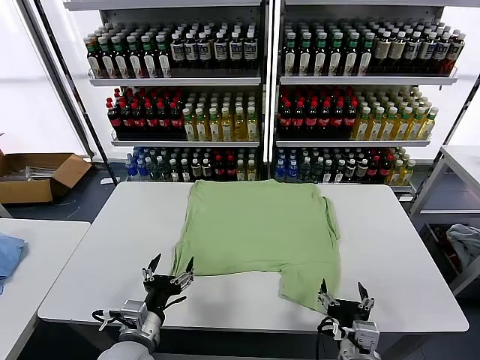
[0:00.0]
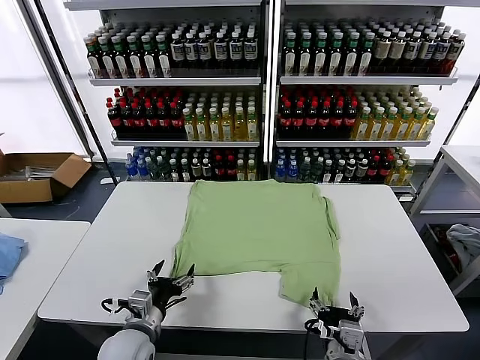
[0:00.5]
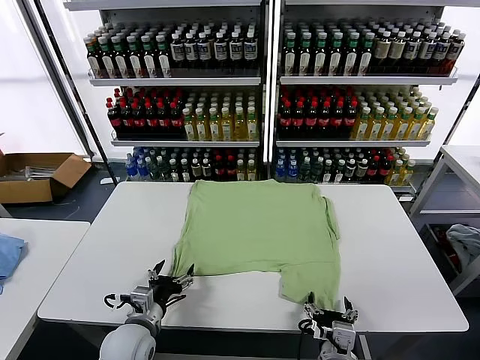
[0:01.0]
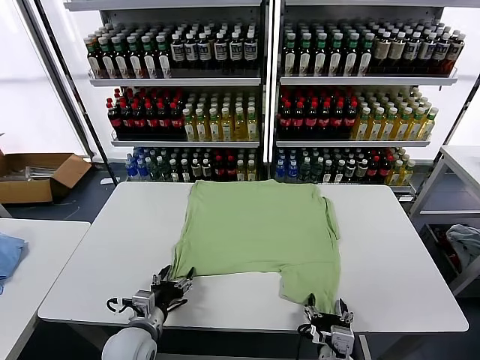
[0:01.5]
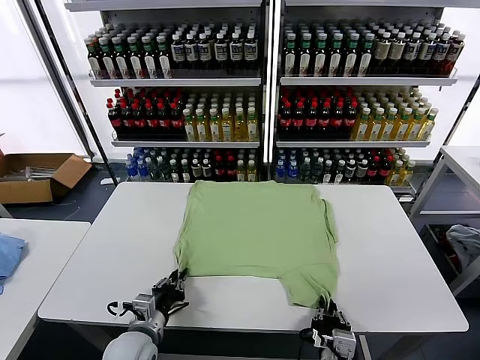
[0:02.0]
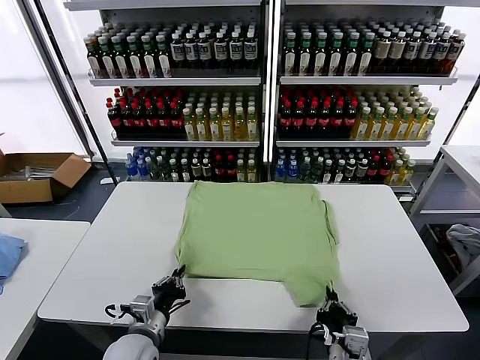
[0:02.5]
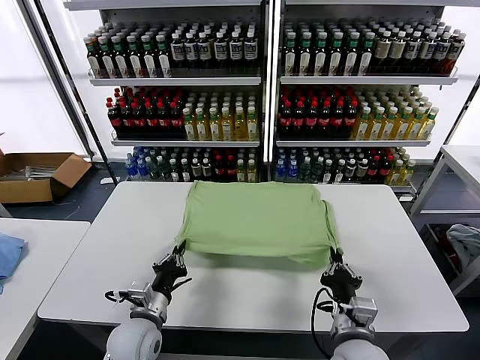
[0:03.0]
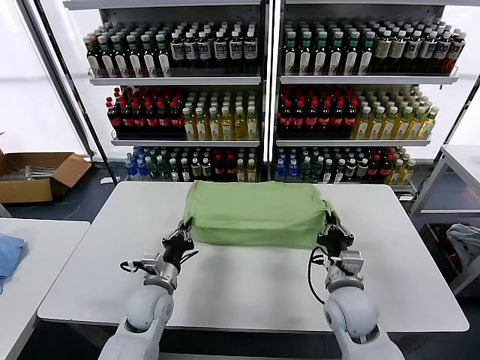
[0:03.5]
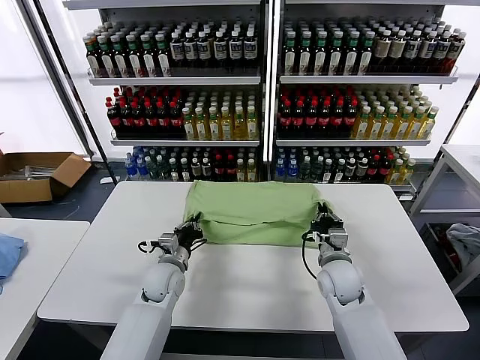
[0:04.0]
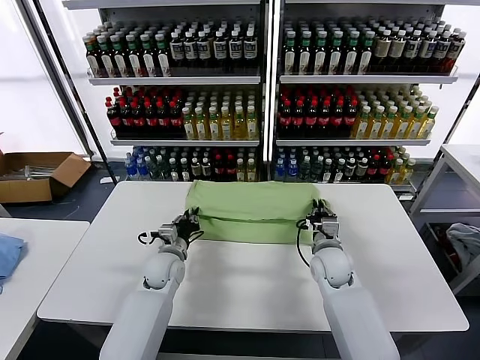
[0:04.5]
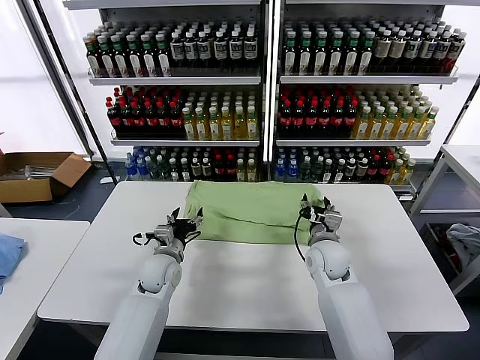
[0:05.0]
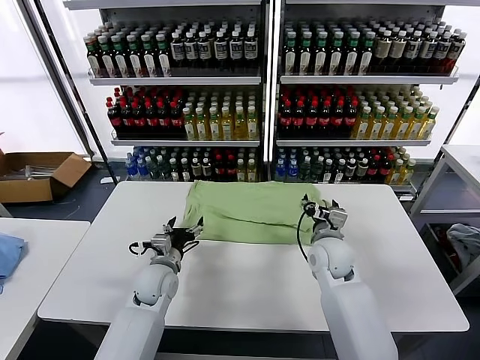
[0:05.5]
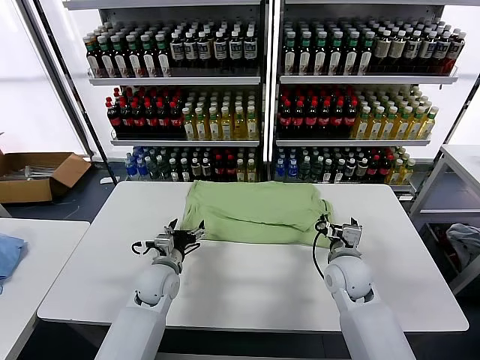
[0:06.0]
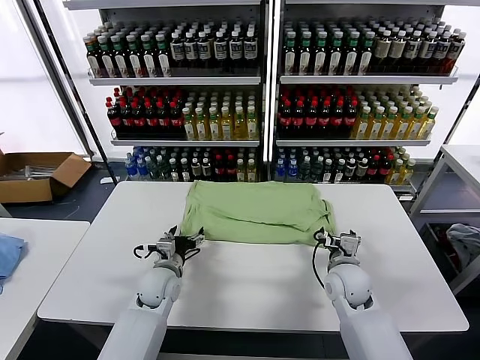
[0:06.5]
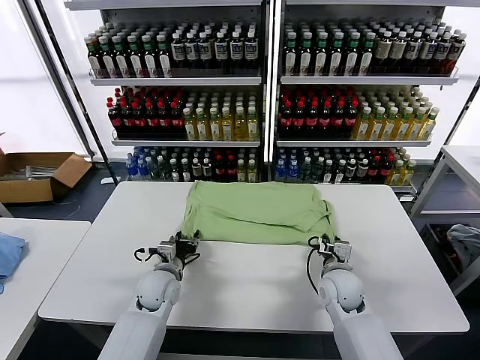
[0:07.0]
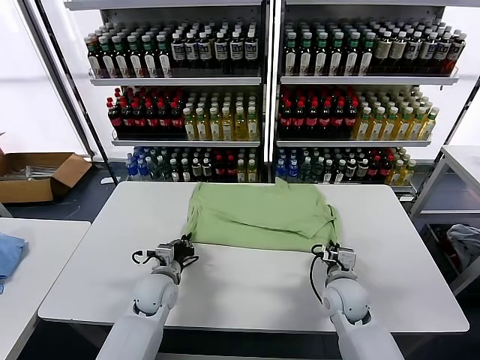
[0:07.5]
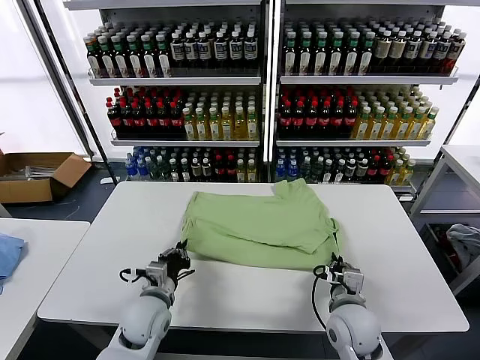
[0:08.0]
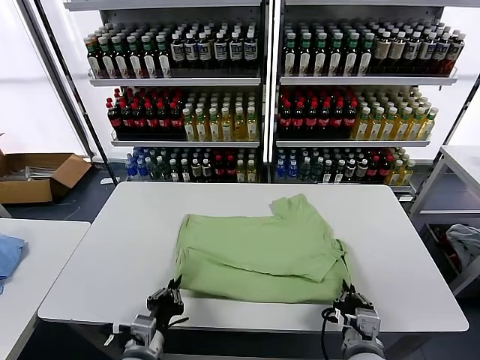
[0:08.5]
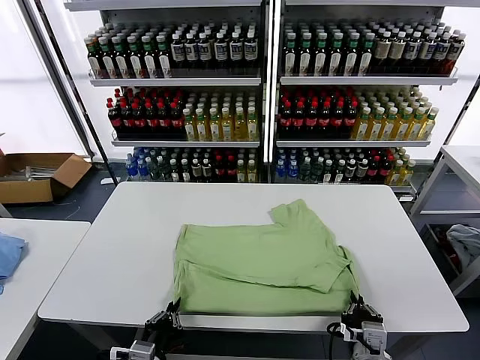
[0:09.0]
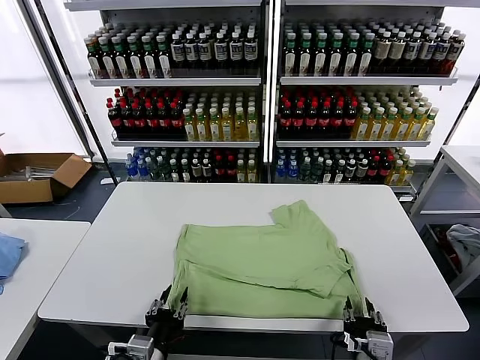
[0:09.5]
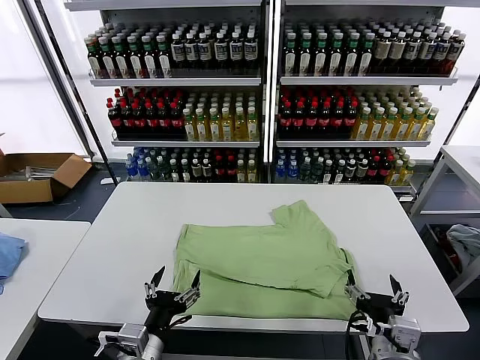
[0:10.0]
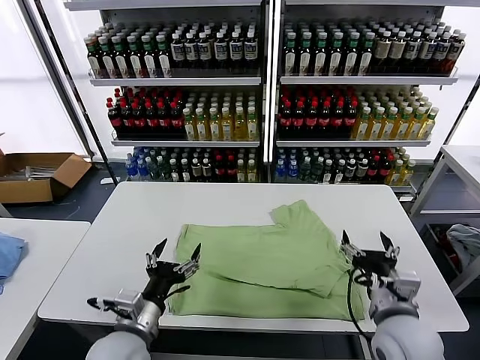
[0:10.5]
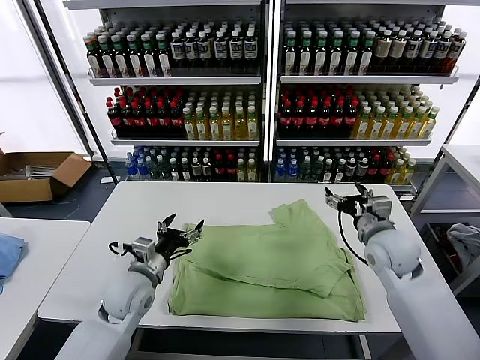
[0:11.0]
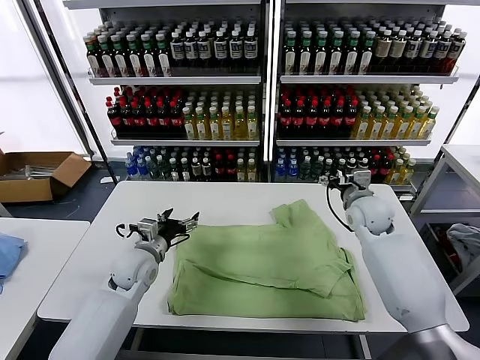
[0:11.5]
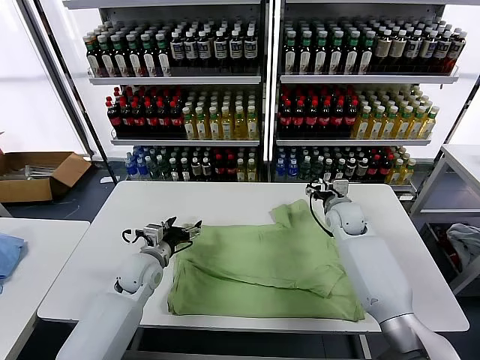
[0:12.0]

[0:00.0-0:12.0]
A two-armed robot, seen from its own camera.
Task of the whole recording: fold and organize the clothes.
Step, 0:00.0 to 0:02.0: use both grippers simultaneously to clamp the lower edge of the clothing fabric.
Step, 0:02.5 to 0:05.0: use both grippers to drag the lower edge of the fabric forward and fold it over the upper edge.
Step, 0:05.5 to 0:09.5: Drag the clothes downward with both gripper.
0:02.0 to 0:04.0: The right gripper shifts some 25 cm forward; the left gripper shifts some 15 cm forward.
0:04.0 to 0:06.0: The left gripper opens its fingers. The right gripper opens its fingers.
0:06.0 to 0:08.0: The right gripper travels backward by approximately 15 cm, and closes up. Meanwhile the left gripper goes about 10 cm backward, and closes its fingers.
0:08.0 to 0:10.0: The right gripper travels backward and upward by roughly 10 cm, and opens its fingers, while the left gripper heads backward, covering about 15 cm, and opens up.
0:10.0 to 0:12.0: The left gripper travels forward by approximately 25 cm. Meanwhile the right gripper shifts about 40 cm forward.

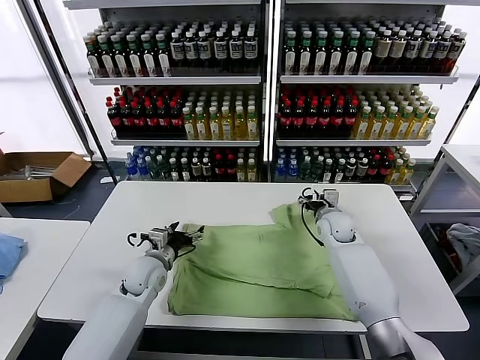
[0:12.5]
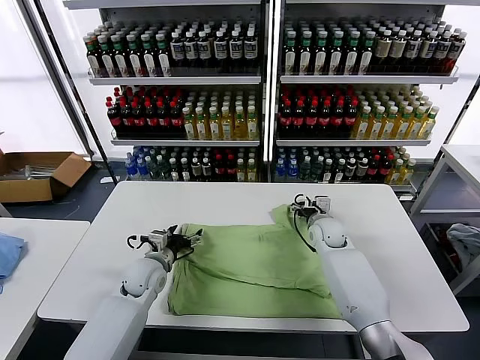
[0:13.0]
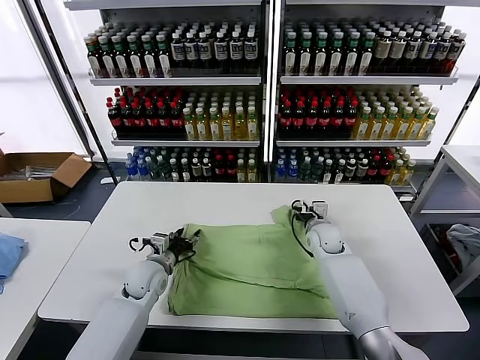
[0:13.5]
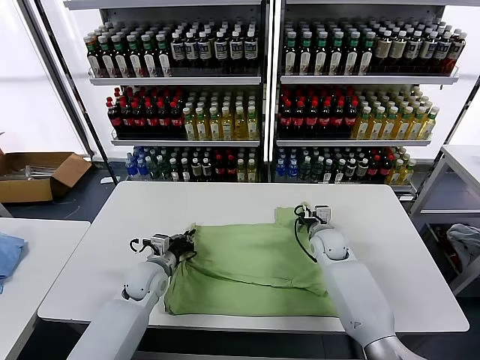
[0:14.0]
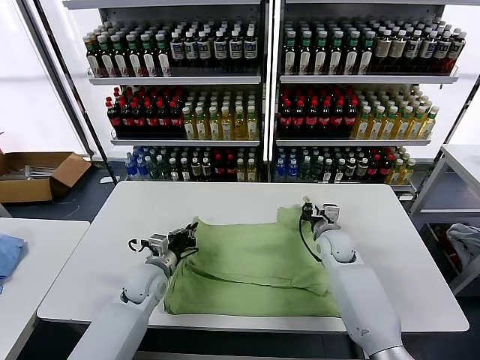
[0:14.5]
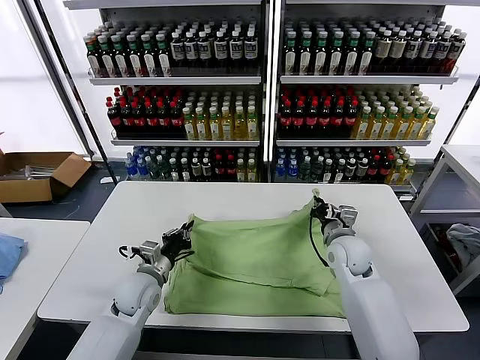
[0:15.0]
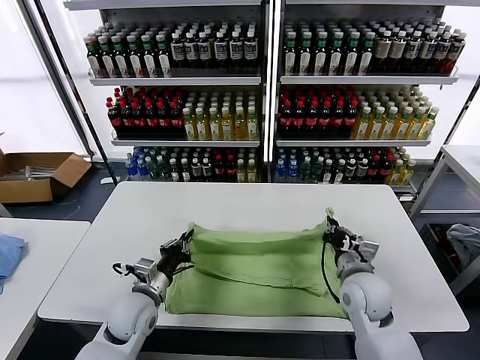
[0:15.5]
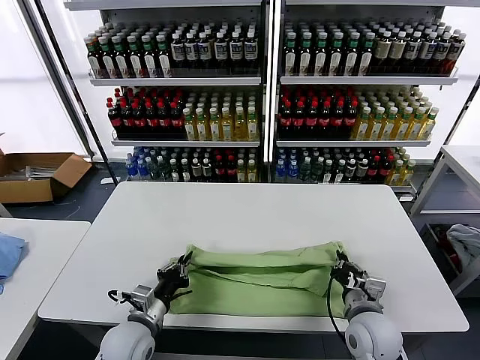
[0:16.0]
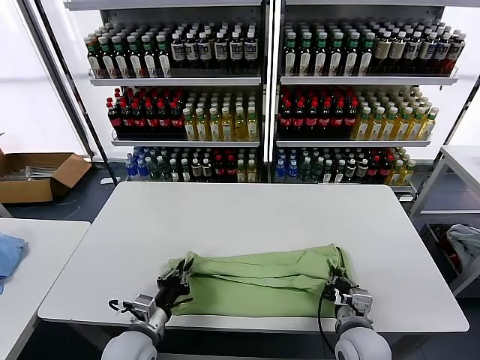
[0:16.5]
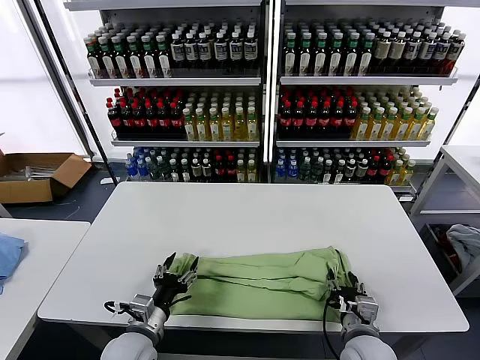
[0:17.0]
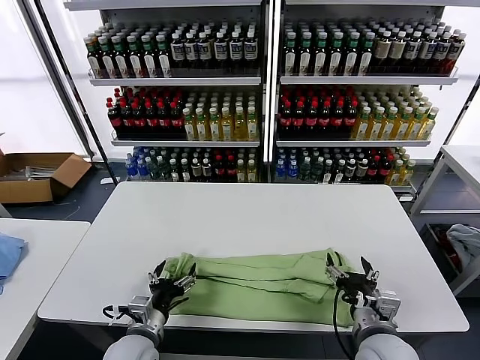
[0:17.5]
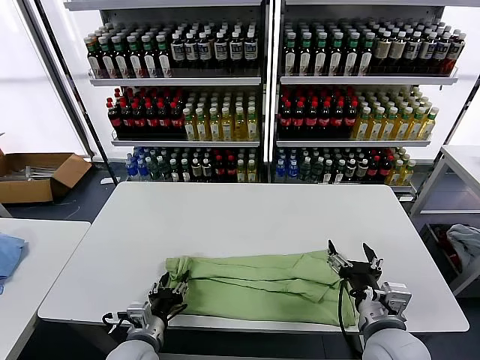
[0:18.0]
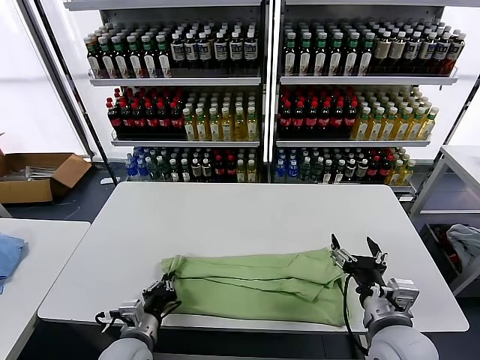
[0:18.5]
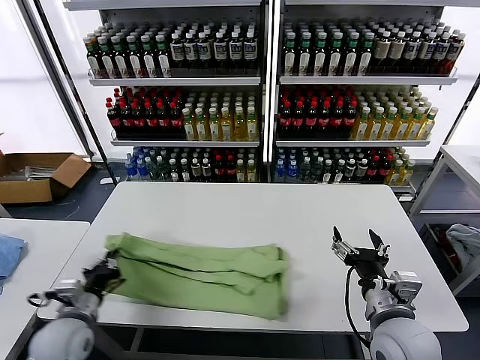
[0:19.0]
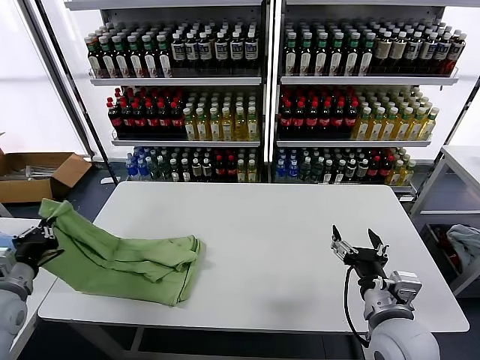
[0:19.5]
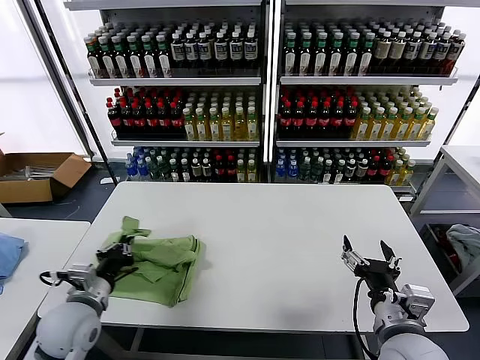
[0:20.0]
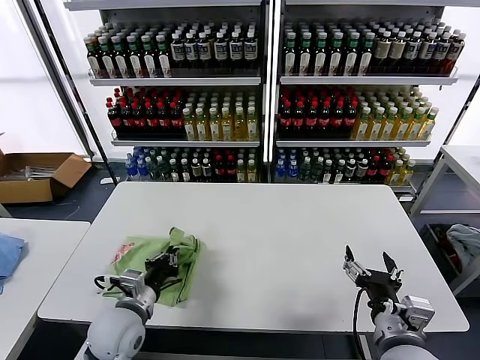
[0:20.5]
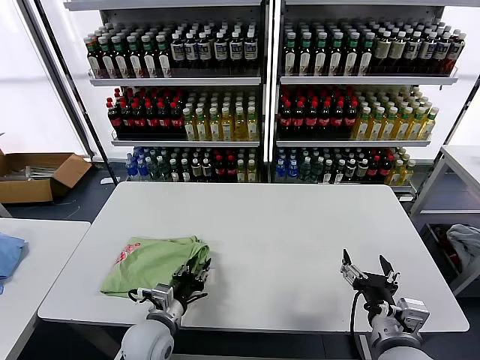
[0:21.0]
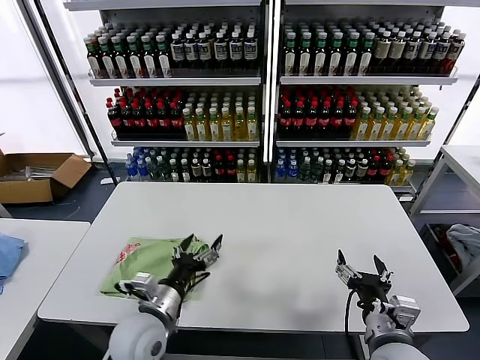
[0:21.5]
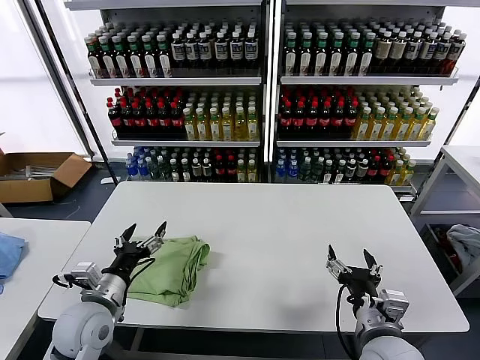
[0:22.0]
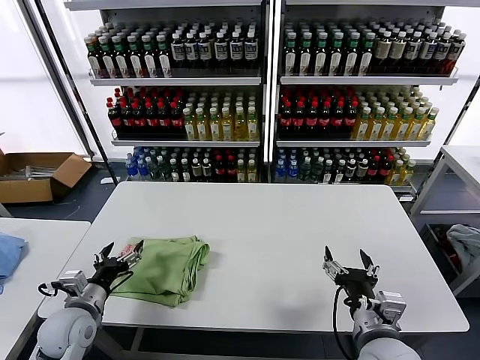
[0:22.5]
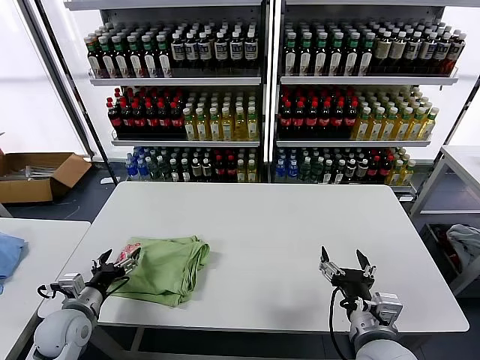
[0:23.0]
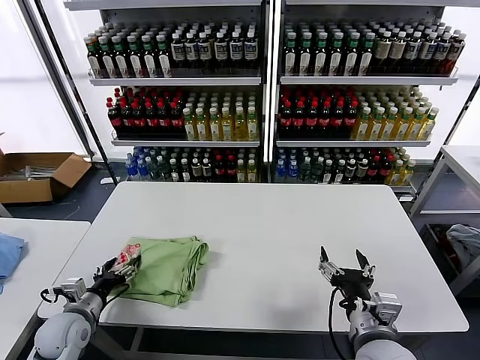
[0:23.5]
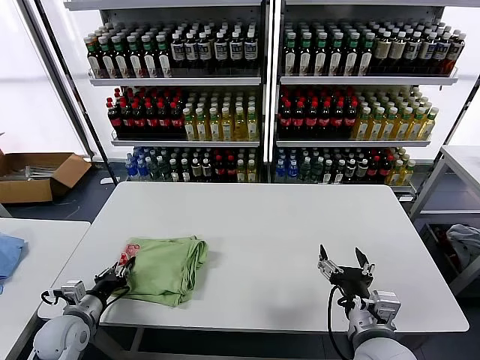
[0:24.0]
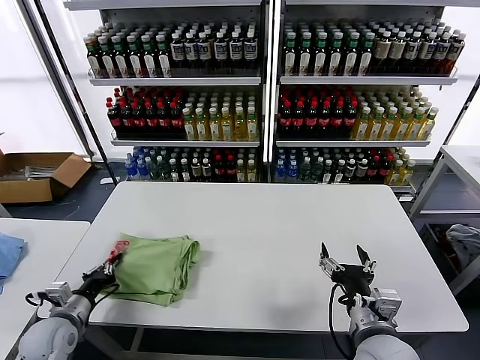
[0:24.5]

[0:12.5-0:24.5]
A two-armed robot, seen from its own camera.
Task of the whole recording: fold and organize the clothes.
Step, 0:14.5 to 0:17.0: use both grippers to drag the upper edge of the fabric backward and fold it over the lower edge.
Step, 0:17.5 to 0:18.0: use the left gripper to clamp the left edge of the fabric.
Step, 0:18.5 to 0:21.0: use the left gripper to drag the left edge of the fabric to the left and folds it over the right edge.
0:12.5 to 0:14.5: The right gripper closes up; the left gripper closes its fingers.
0:14.5 to 0:16.5: The left gripper shifts some 15 cm backward. The right gripper travels backward by about 25 cm.
0:16.5 to 0:18.5: The right gripper shifts roughly 10 cm upward, and opens its fingers. The left gripper opens, then closes again.
0:18.5 to 0:20.5: The left gripper shifts roughly 5 cm upward, and reaches about 20 cm to the left, then returns.
0:20.5 to 0:22.5: The left gripper heads to the left, covering roughly 10 cm, and opens up.
0:22.5 to 0:24.5: The left gripper heads to the left, covering approximately 5 cm, and closes.

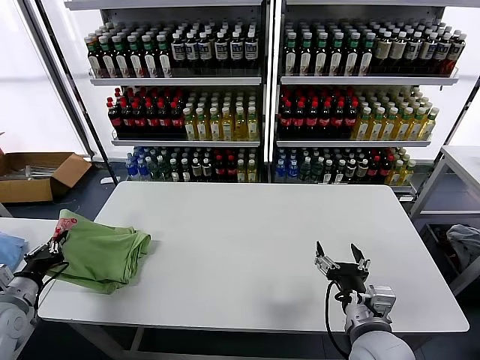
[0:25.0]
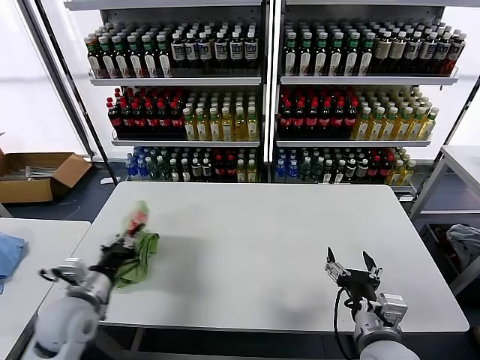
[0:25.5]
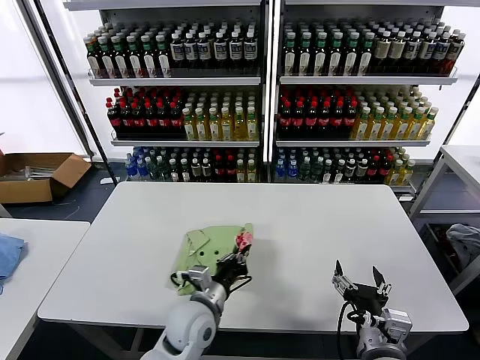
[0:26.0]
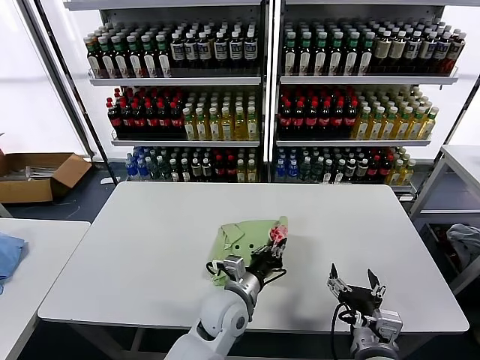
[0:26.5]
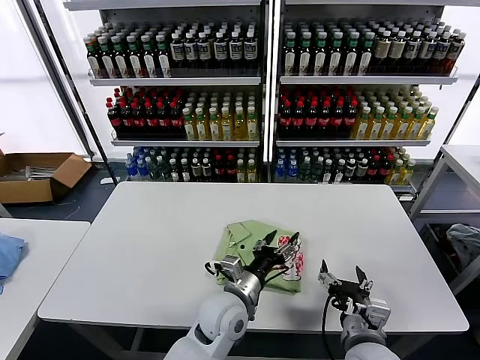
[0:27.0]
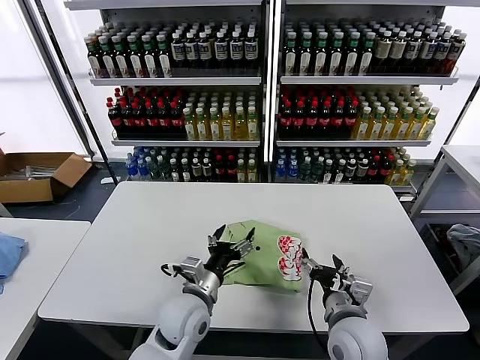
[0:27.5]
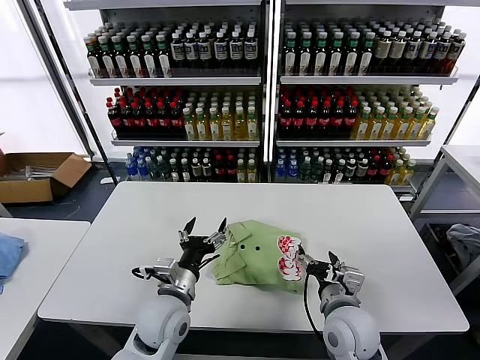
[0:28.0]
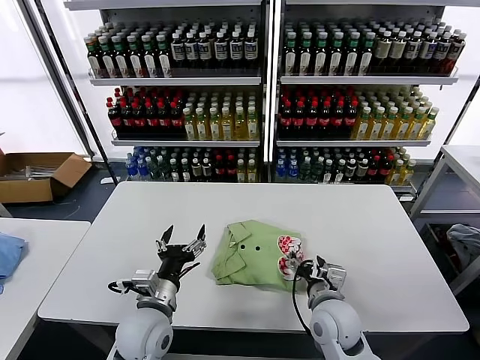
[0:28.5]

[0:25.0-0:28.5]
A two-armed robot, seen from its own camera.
Task of the whole recording: fold and organize the clothes.
0:25.0 to 0:27.0: The left gripper travels to the right by roughly 40 cm, and opens.
0:27.0 to 0:28.5: The left gripper moves to the left, some 15 cm. Meanwhile the right gripper heads forward, covering about 10 cm.
